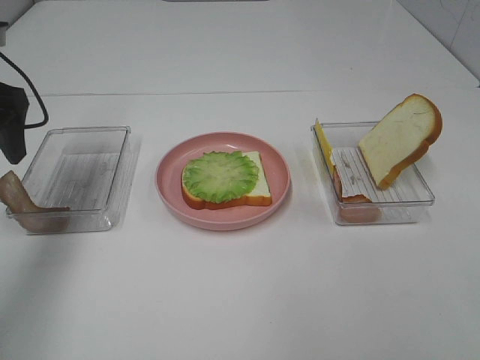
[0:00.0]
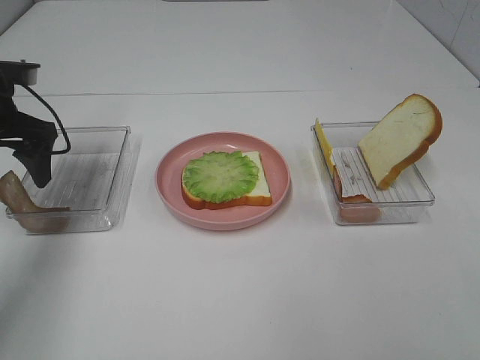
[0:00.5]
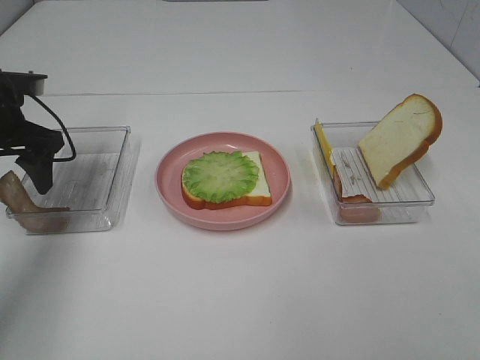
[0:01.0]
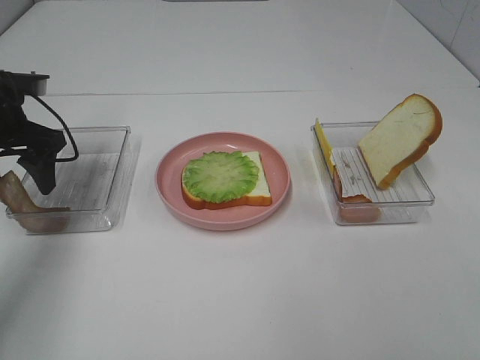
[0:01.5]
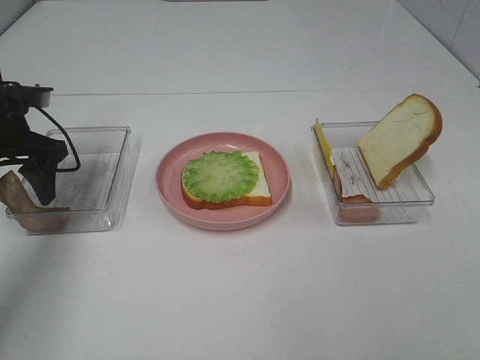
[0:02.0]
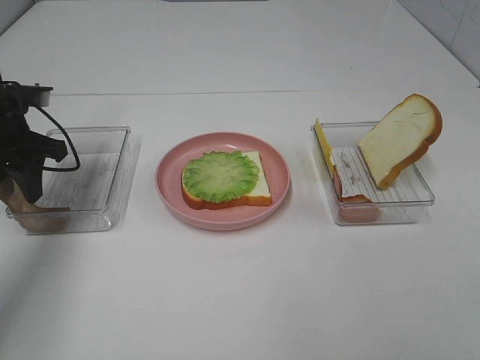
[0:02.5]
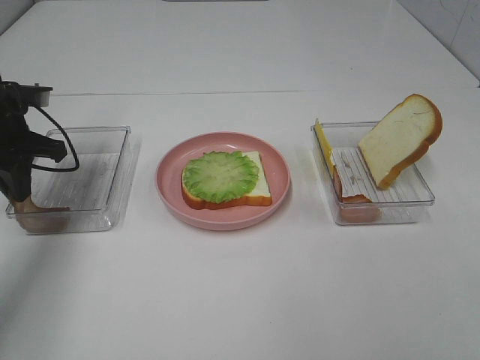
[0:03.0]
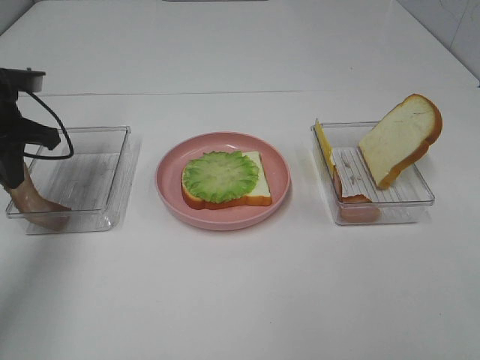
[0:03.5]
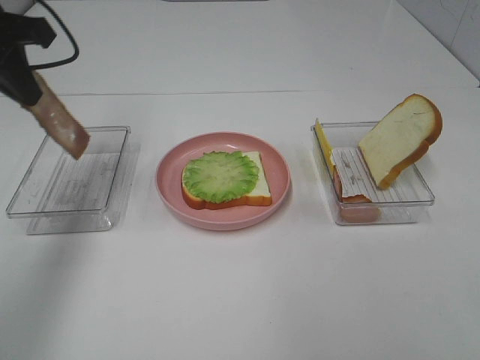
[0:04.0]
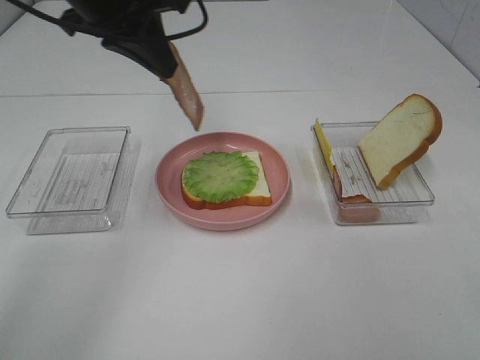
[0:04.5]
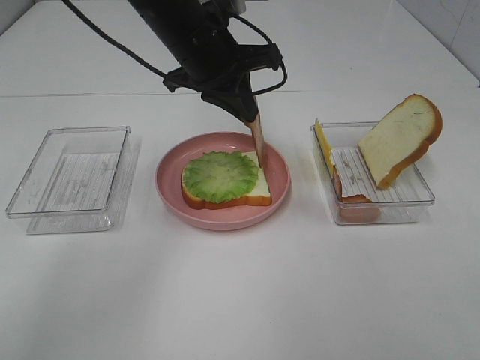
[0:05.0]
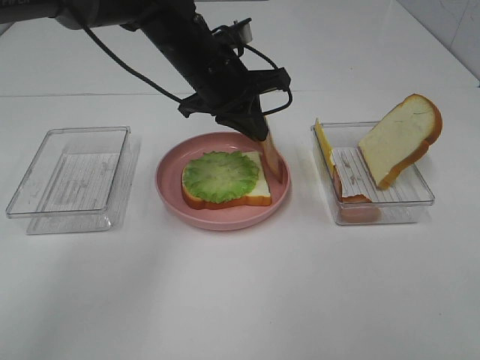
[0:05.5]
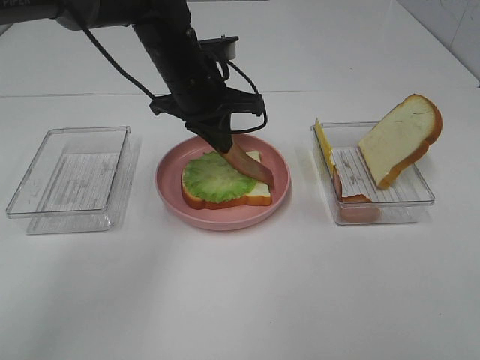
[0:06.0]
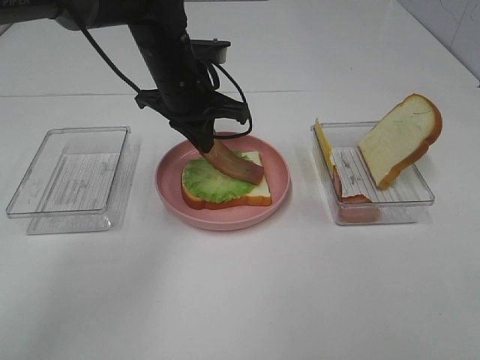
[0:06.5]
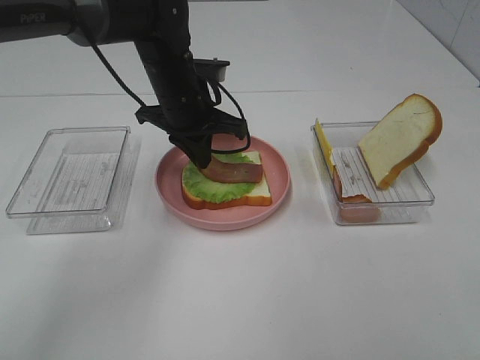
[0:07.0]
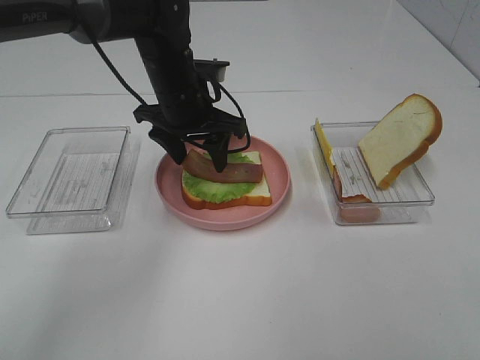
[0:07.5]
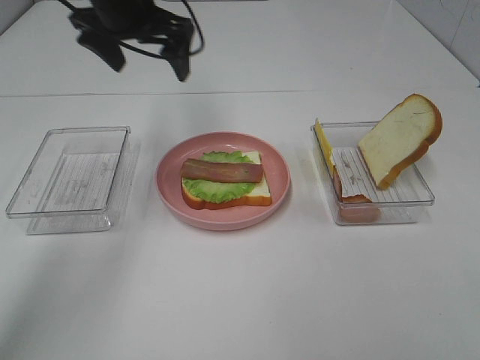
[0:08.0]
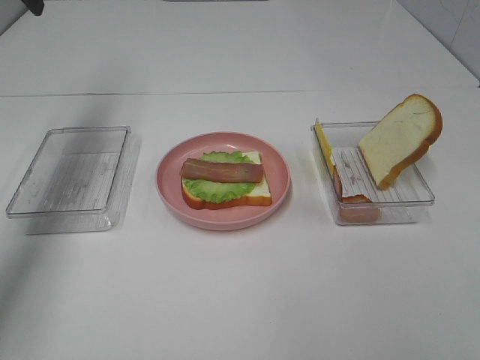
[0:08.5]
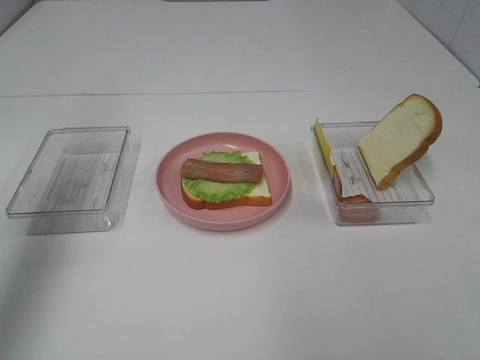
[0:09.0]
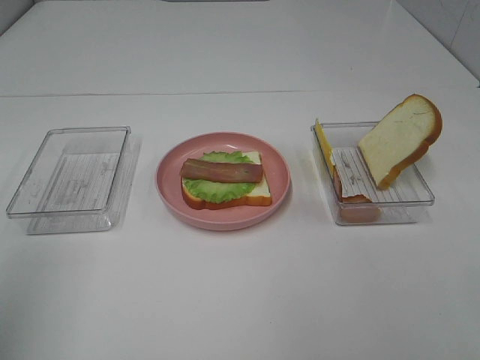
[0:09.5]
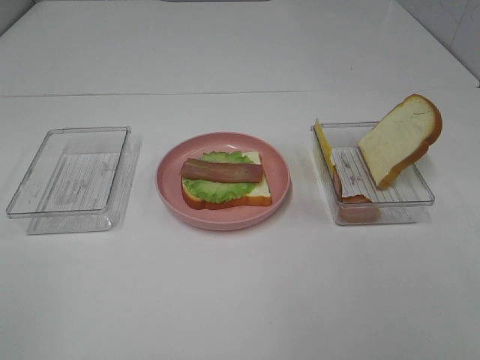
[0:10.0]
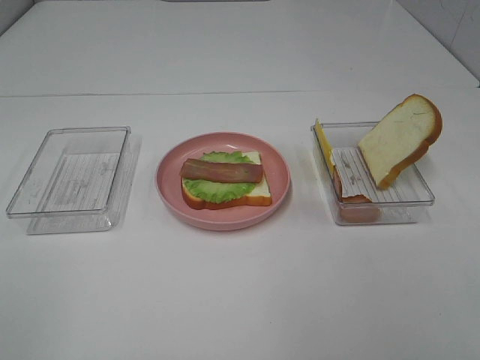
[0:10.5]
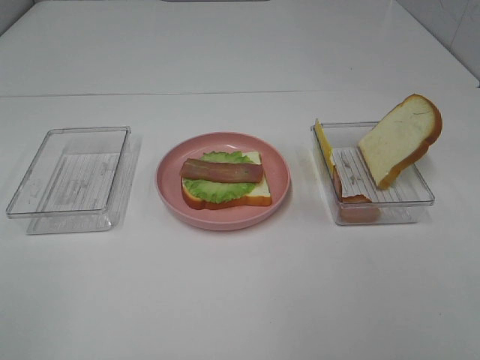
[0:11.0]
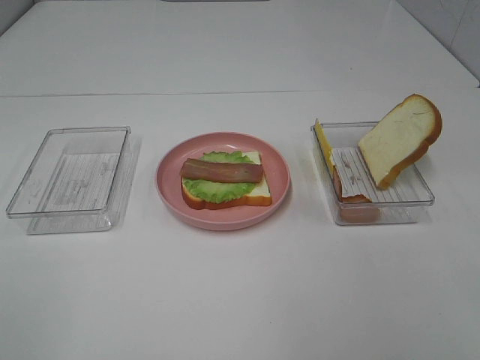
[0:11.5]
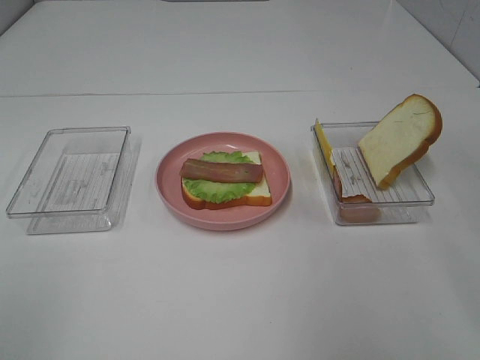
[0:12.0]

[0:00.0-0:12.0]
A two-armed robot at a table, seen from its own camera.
Task of the whole recording: Make sandwiches.
Step, 0:00.0 to 0:03.0: Left hand:grab the bacon.
Step, 0:03.5 to 0:07.5: Left hand:place bacon on lettuce slice.
0:00.0 to 0:02.0: The left gripper goes about 10 cm downward.
0:02.0 to 0:04.0: The left gripper goes about 15 cm upward, and closes.
0:04.0 to 0:06.0: The left gripper shifts some 25 cm to the right, downward and forward.
0:06.0 to 0:08.0: The left gripper shifts approximately 15 cm upward and to the left, and opens.
0:08.0 to 0:10.0: The left gripper is displaced backward by some 50 cm.

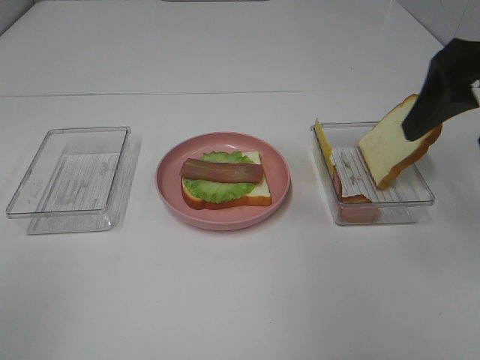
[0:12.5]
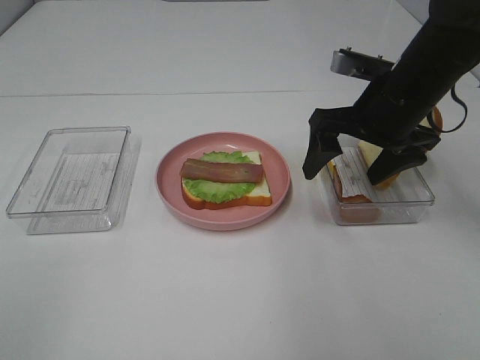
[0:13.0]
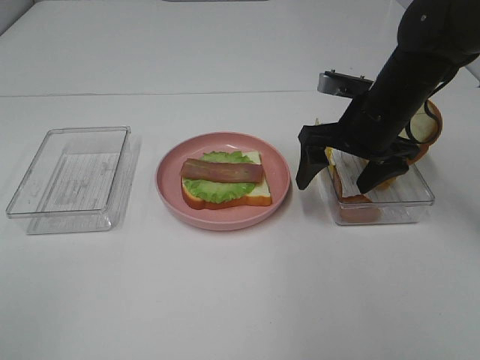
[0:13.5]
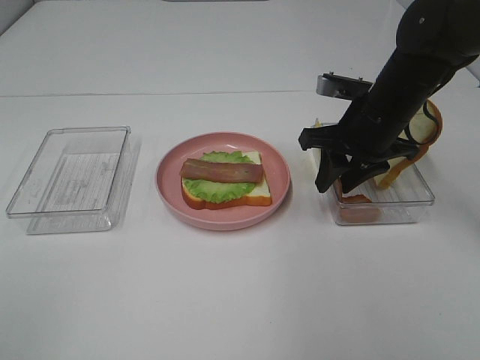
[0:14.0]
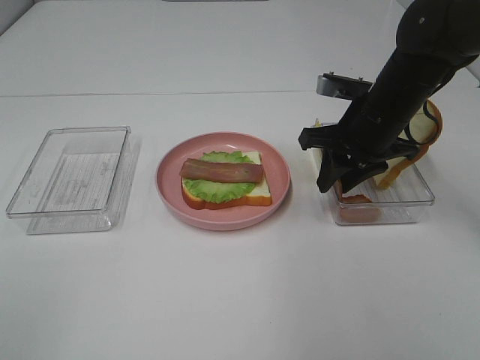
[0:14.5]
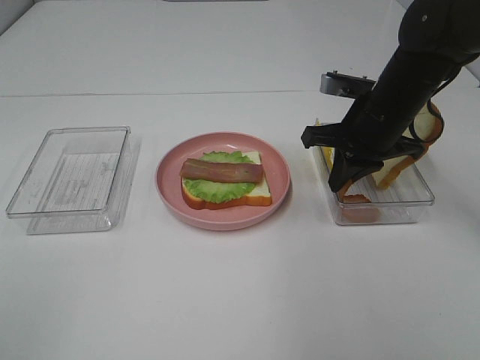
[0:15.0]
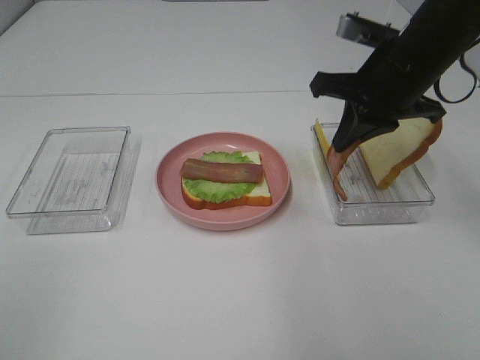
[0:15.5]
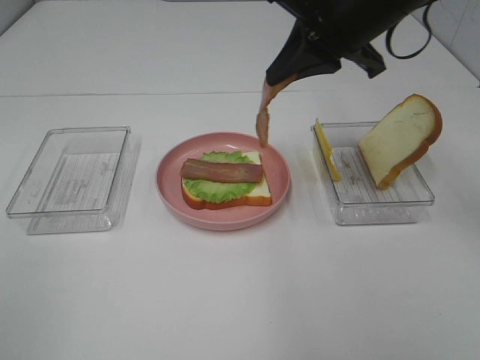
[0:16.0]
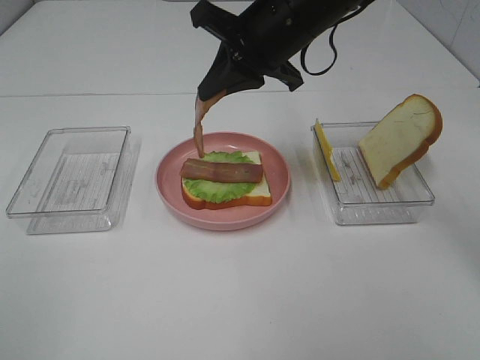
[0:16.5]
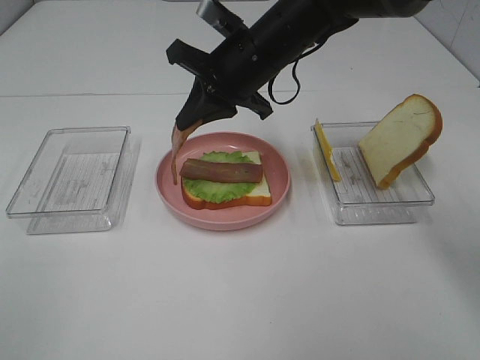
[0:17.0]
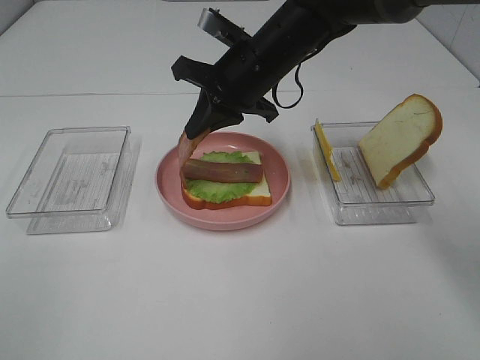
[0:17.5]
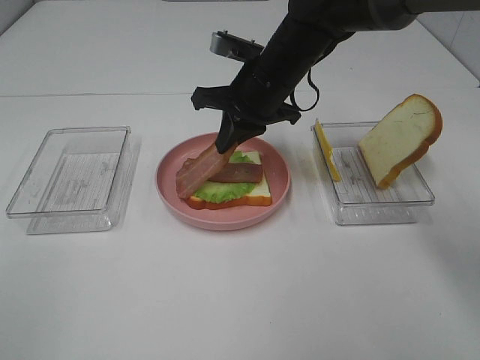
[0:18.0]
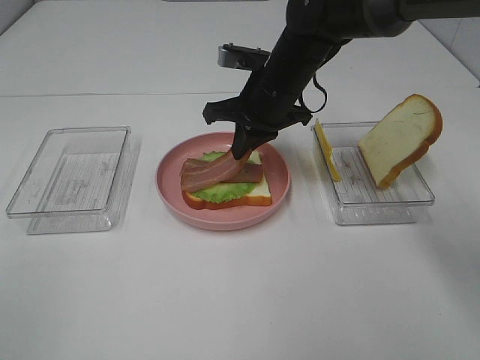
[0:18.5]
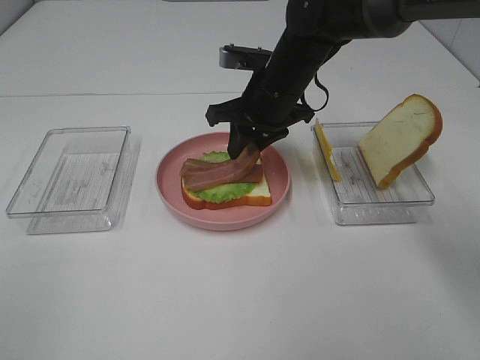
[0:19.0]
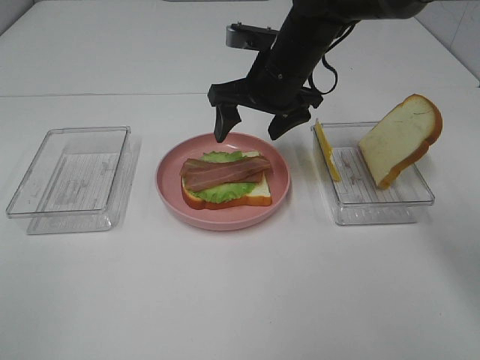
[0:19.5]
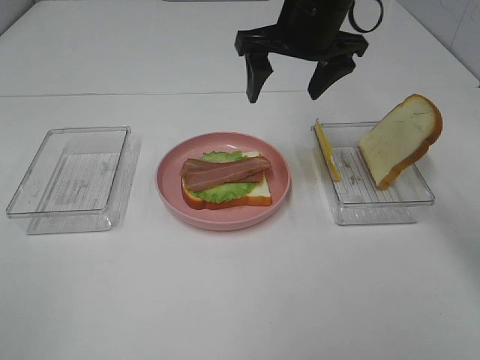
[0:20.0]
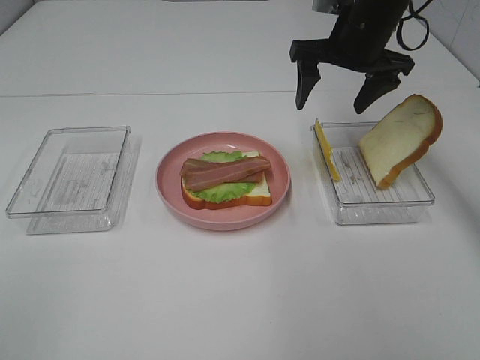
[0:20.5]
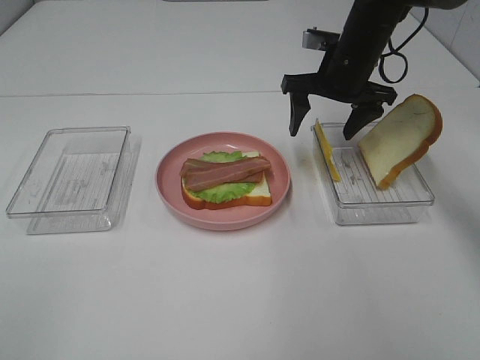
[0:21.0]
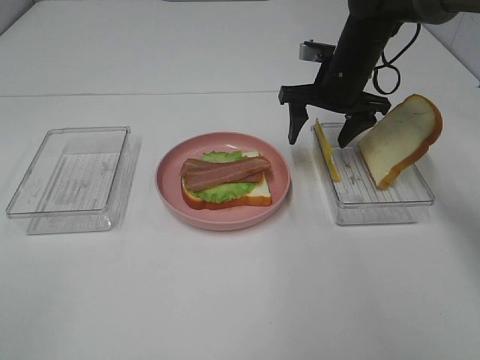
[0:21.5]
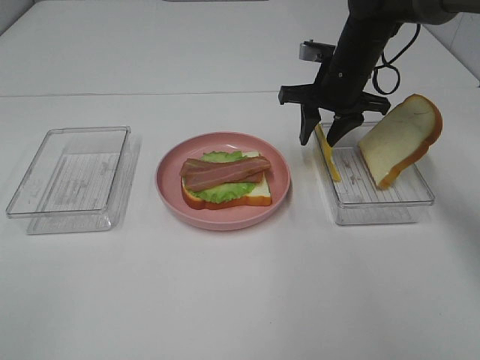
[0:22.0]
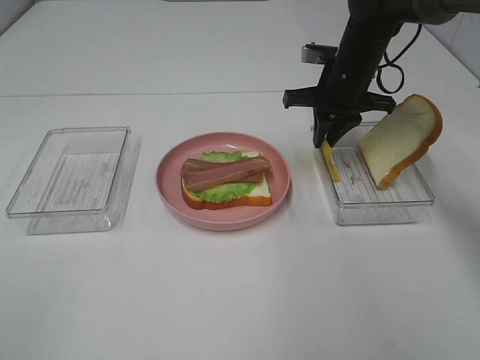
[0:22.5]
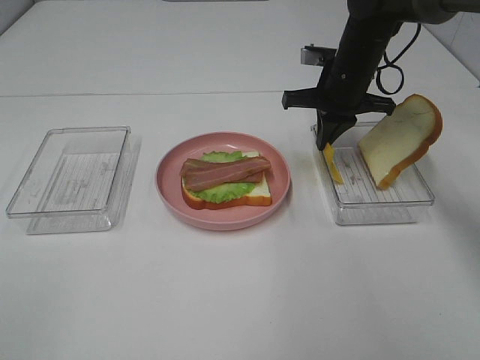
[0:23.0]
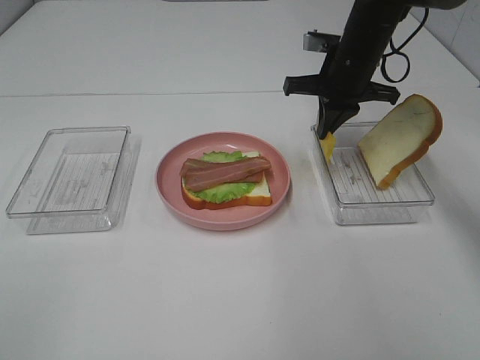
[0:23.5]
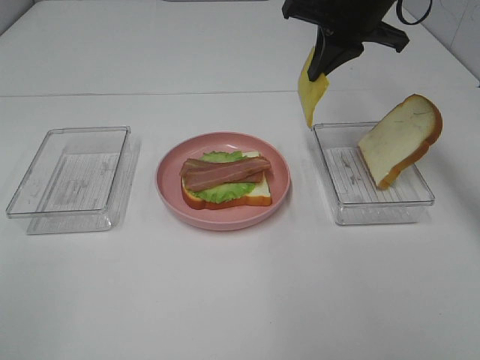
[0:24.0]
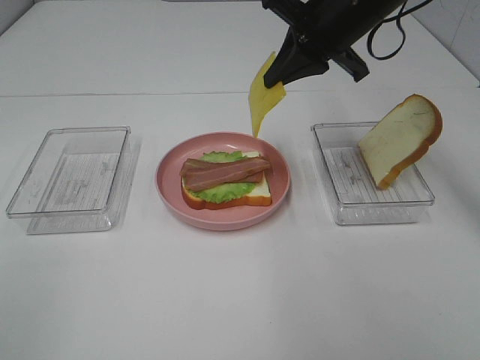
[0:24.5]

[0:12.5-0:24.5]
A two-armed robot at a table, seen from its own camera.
Task of the whole recording: Make sandwiches.
Step, 0:12.5 to 0:14.5: Right hand:grab the bacon.
Step, 0:15.0 to 0:19.5: Right hand:place bacon on bacon.
Step, 0:20.0 to 0:23.0: Right hand:grab the cheese slice.
0:12.5 to 0:14.5: The right gripper travels downward, forward and to the left by some 20 cm, and closes its fingers.
0:14.5 to 0:16.5: The right gripper is displaced to the left and upward by about 15 cm, and closes.
0:16.5 to 0:18.5: The right gripper goes roughly 10 cm downward.
0:18.5 to 0:20.5: The right gripper shifts about 10 cm to the right and upward, and opens up.
0:20.5 to 0:22.5: The right gripper is displaced downward by approximately 5 cm, and closes.
0:22.5 to 0:24.5: The right gripper is displaced upward and backward by roughly 10 cm.

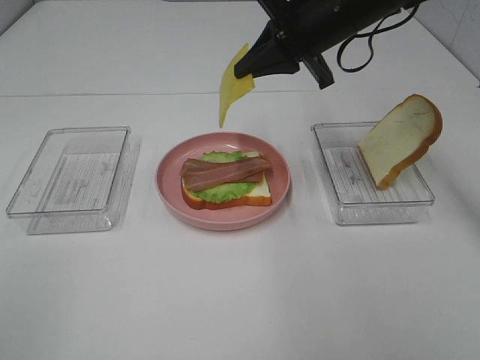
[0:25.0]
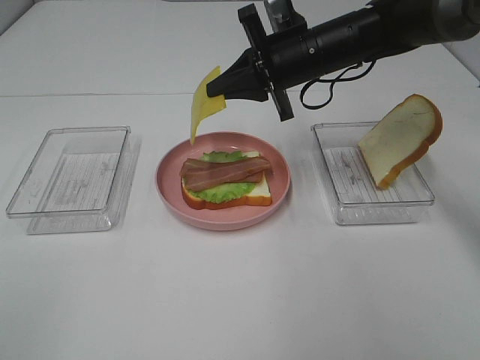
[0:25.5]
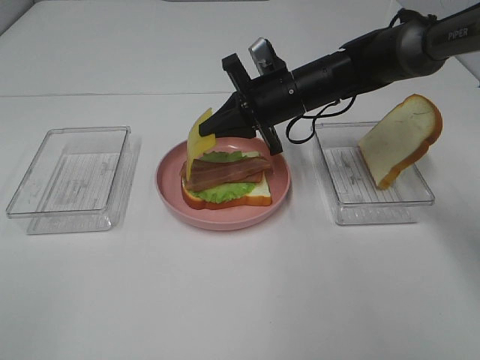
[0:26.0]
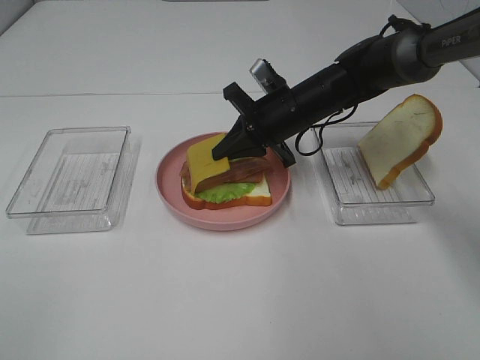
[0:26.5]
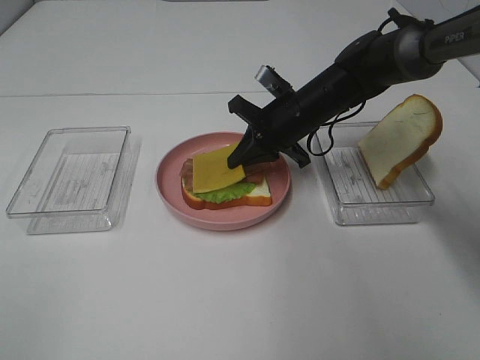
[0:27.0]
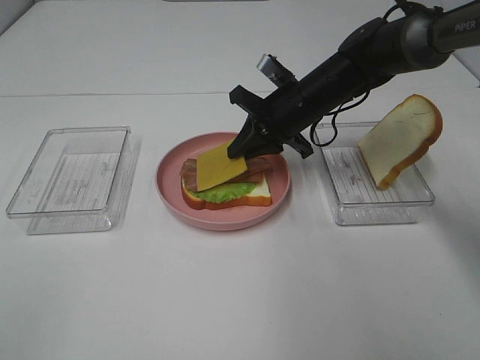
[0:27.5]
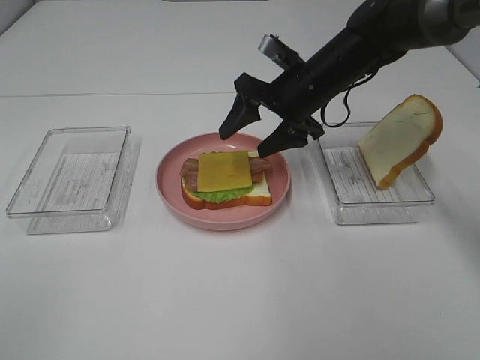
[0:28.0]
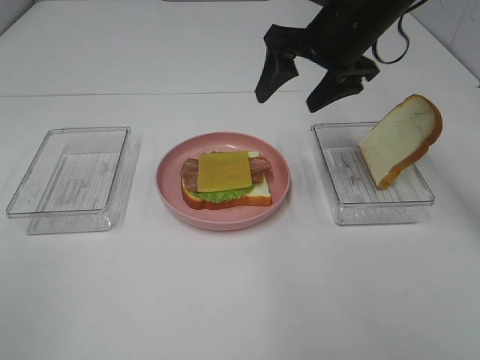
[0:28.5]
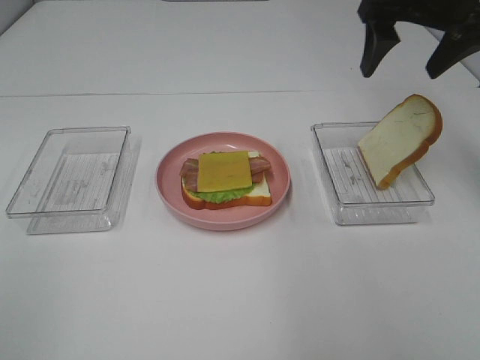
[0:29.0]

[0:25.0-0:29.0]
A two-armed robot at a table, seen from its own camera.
Task of the whole recording: Make sandwiches.
Step, 0:25.0 to 0:27.5: Right hand:place the cheese slice on top of the bacon.
0:25.0 to 0:27.0: The right gripper moves downward, about 15 cm.
0:27.0 to 0:29.0: The right gripper goes roughly 25 cm upward and to the right, and opens up.
